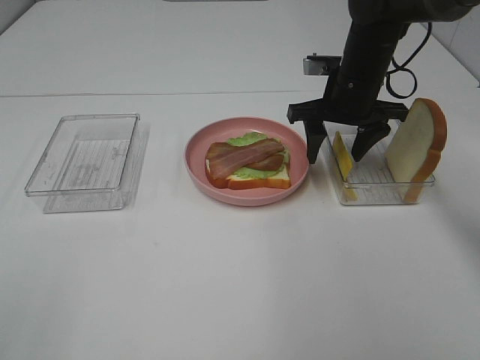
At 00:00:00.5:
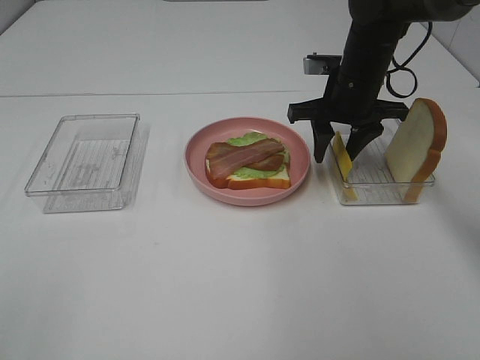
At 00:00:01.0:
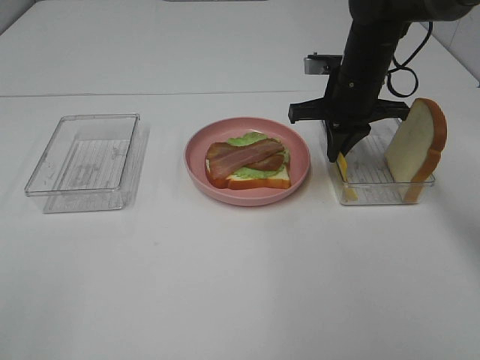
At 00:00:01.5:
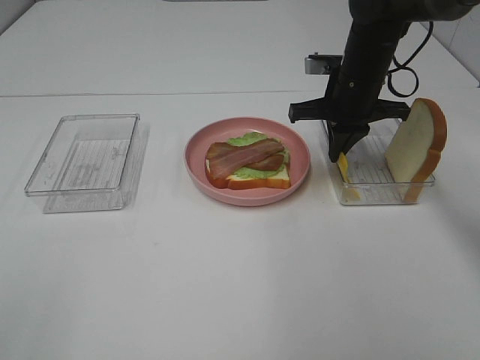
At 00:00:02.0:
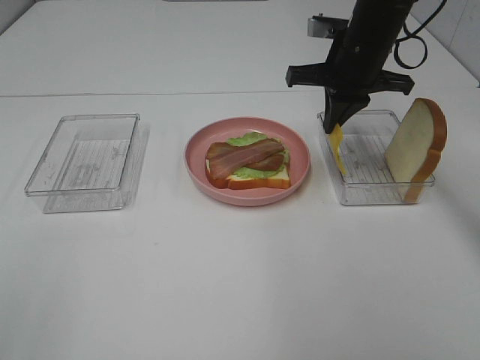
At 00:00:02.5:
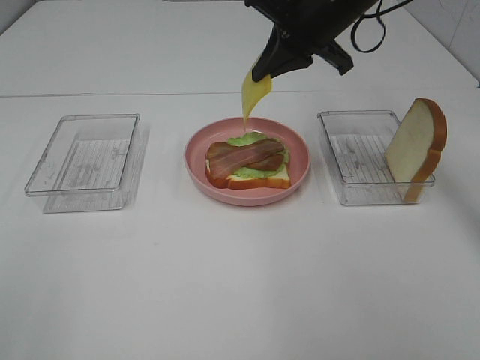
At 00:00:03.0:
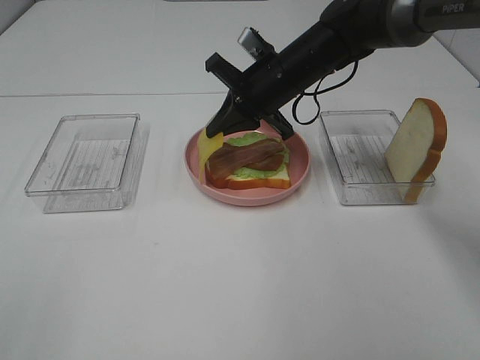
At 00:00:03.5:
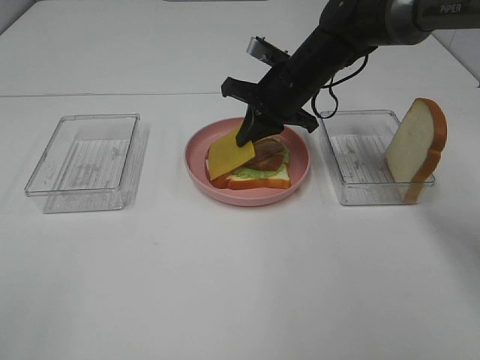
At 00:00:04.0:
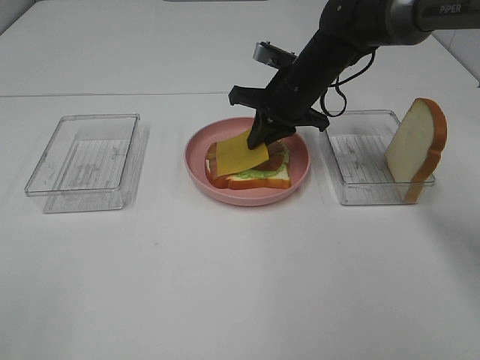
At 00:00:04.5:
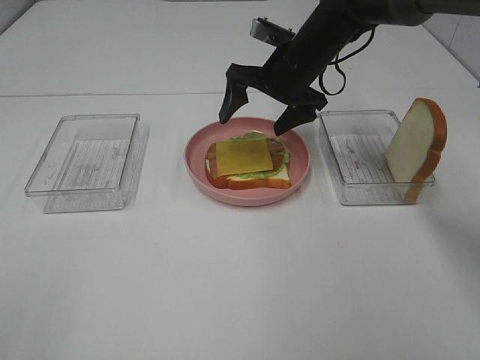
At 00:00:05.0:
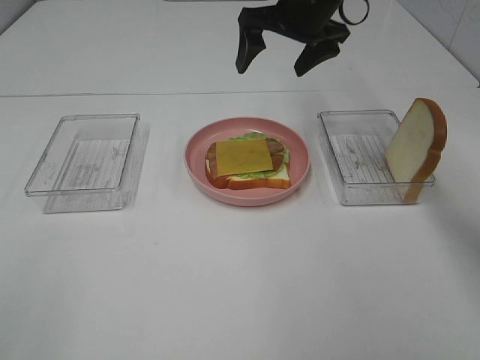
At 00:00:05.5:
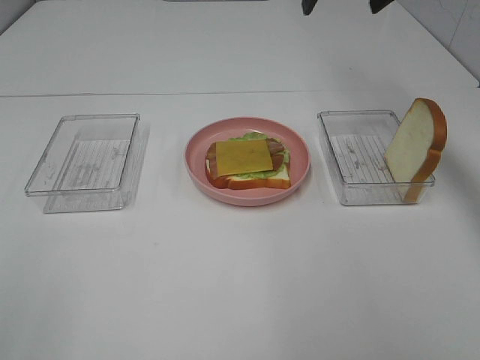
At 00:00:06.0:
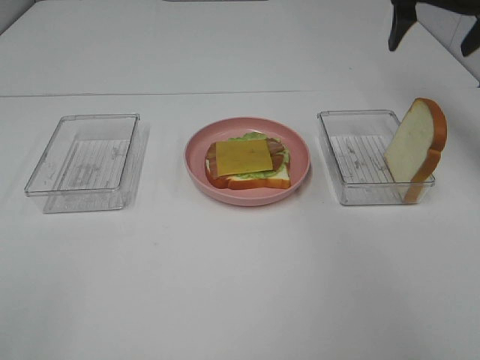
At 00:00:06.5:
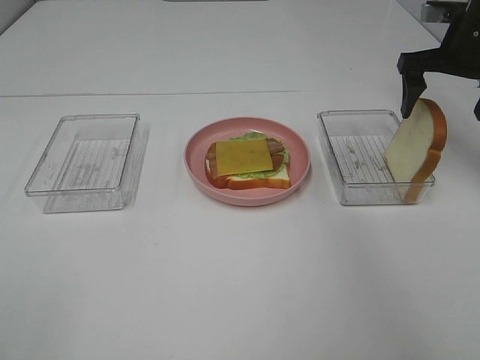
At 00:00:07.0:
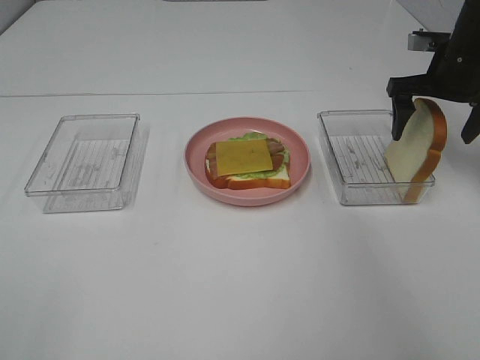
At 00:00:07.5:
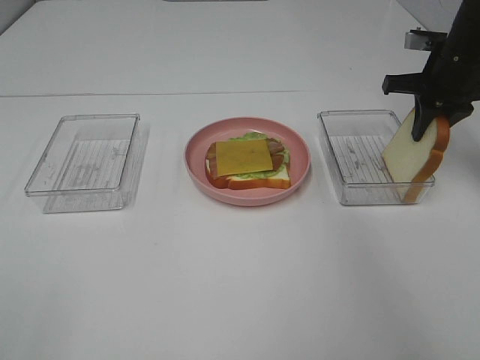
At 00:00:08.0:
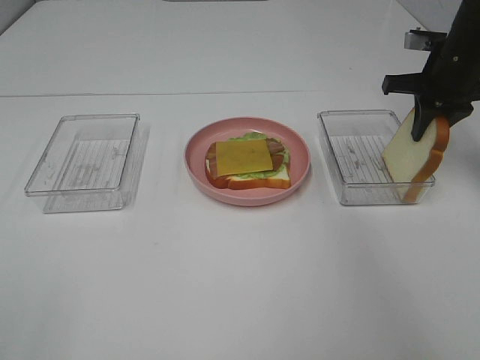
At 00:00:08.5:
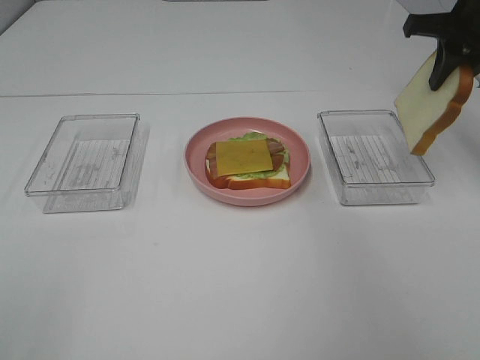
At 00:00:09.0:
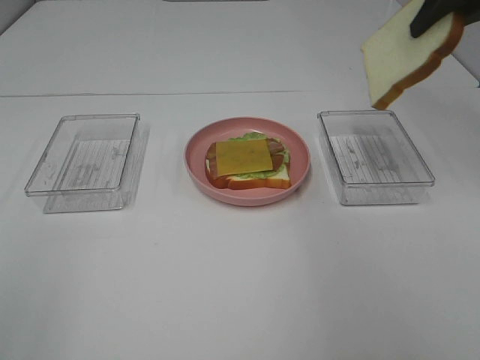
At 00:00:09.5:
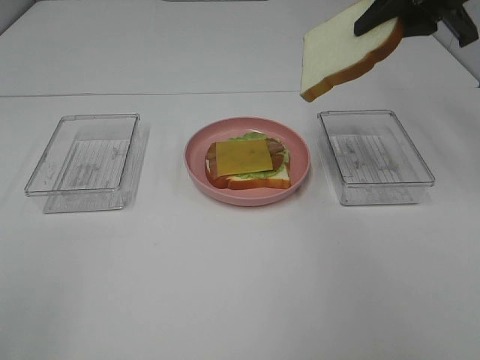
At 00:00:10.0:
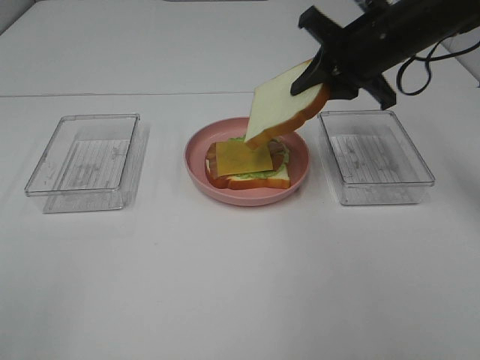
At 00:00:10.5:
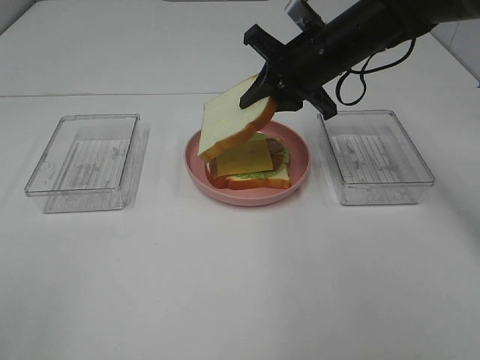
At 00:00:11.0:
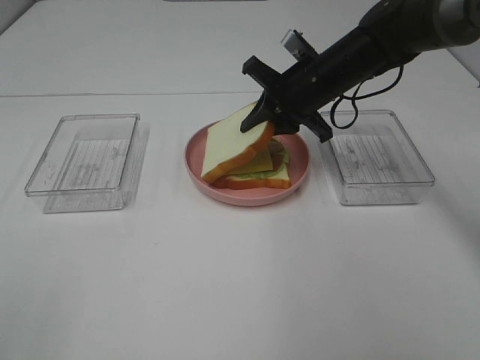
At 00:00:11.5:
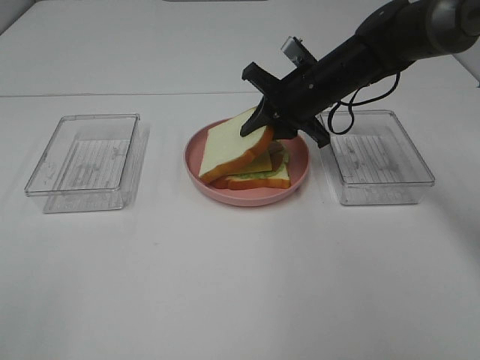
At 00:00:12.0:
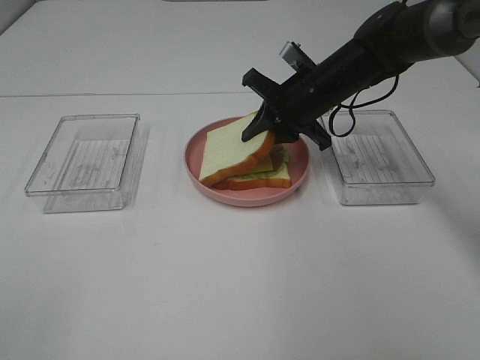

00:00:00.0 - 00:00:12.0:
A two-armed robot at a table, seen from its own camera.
Task of the whole recording: Make sandwiches.
Step, 00:00:02.0 - 00:00:04.0: Right hand:place the cheese slice on top of the bacon.
Step, 00:00:04.5 - 00:00:08.0: Right hand:grab the bread slice.
00:00:00.0 - 00:00:02.0: The right gripper heads upward, covering roughly 5 cm, and closes.
00:00:02.0 - 00:00:04.0: The right gripper shifts about 10 cm downward and to the left.
00:00:04.0 - 00:00:06.0: The right gripper travels to the right and upward by approximately 25 cm, and opens up.
00:00:06.0 - 00:00:08.0: The right gripper heads downward, covering approximately 10 cm, and closes its fingers.
00:00:08.0 - 00:00:10.0: The right gripper moves to the left, some 10 cm, and moves roughly 15 cm upward and comes back.
00:00:10.0 - 00:00:12.0: The right gripper travels downward and to the left by about 10 cm.

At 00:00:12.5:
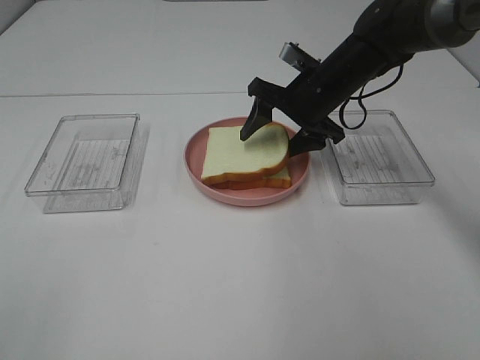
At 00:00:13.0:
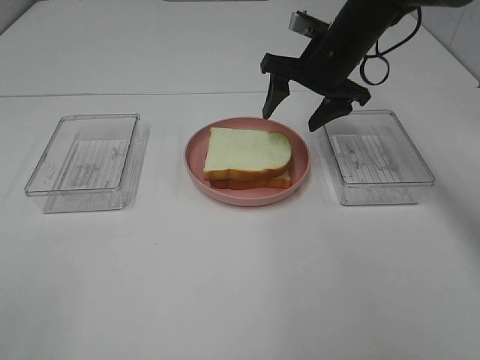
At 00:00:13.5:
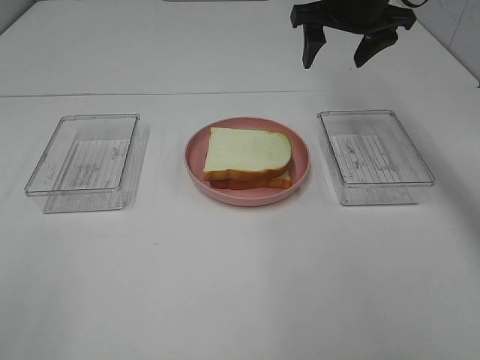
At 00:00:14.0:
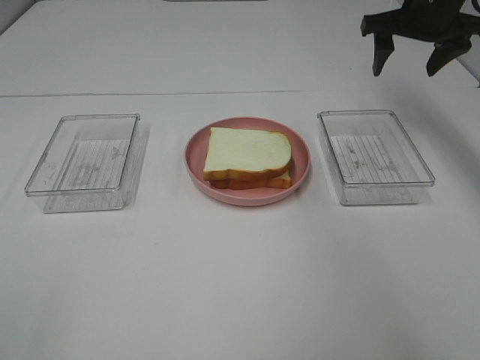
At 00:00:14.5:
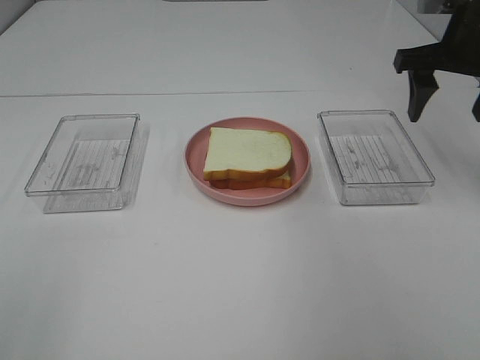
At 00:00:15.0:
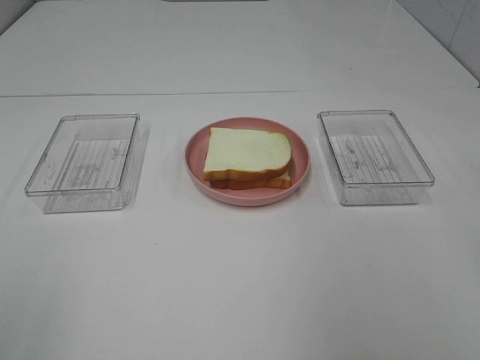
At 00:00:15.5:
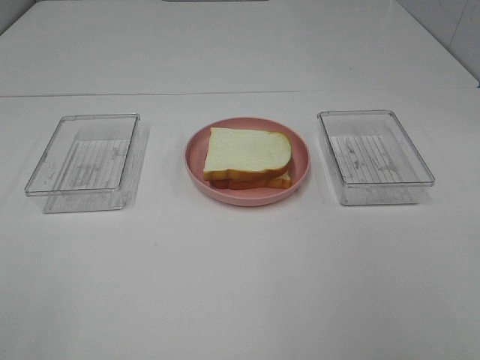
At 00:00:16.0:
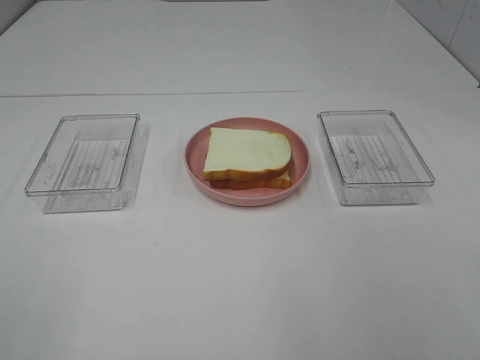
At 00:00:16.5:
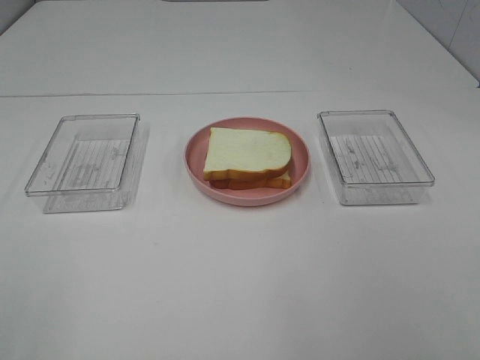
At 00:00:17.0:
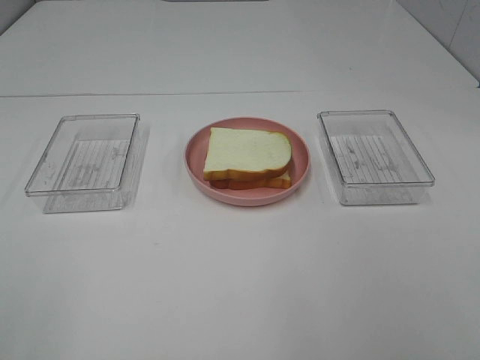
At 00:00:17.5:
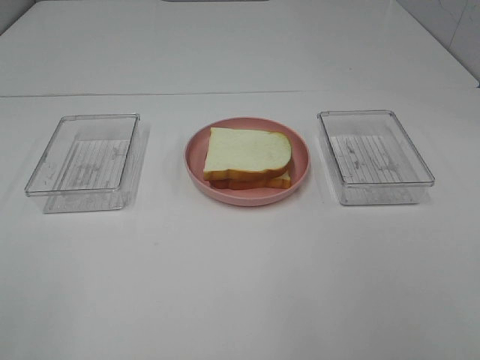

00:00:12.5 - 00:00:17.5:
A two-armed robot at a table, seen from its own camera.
Task of the whole recording: Make sandwiches.
00:00:12.5 - 00:00:15.0: The right gripper is displaced backward, upward and to the right by roughly 35 cm.
